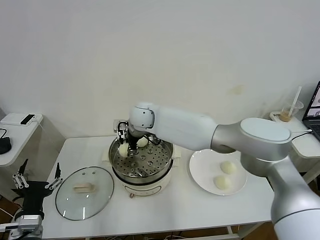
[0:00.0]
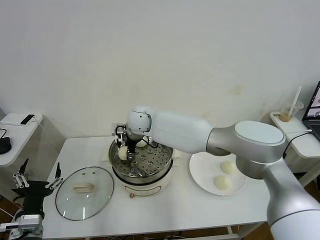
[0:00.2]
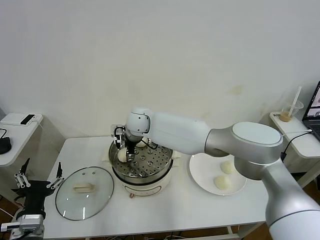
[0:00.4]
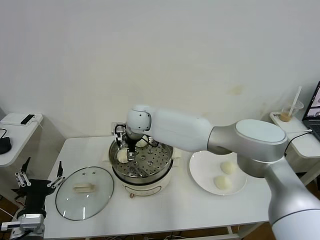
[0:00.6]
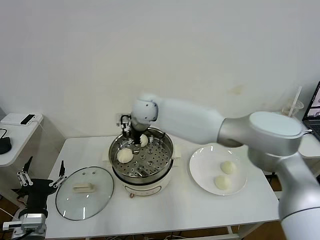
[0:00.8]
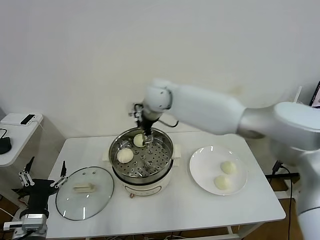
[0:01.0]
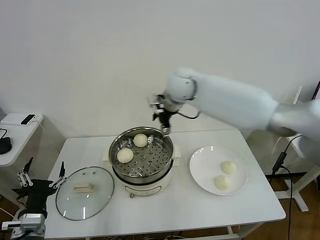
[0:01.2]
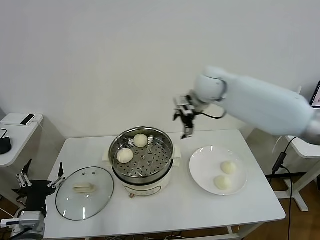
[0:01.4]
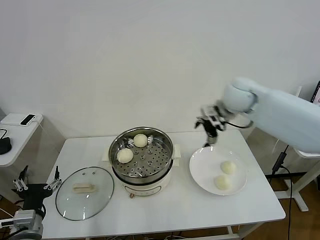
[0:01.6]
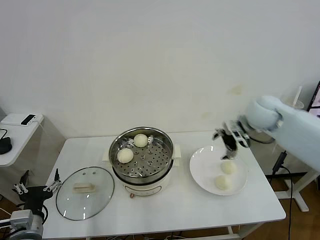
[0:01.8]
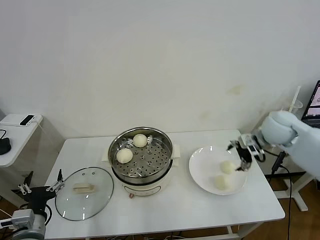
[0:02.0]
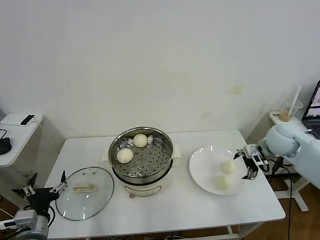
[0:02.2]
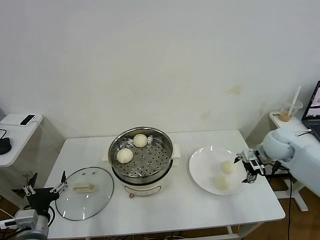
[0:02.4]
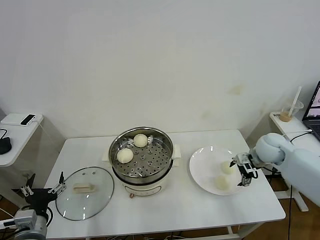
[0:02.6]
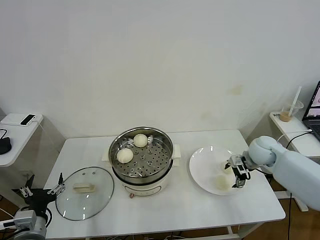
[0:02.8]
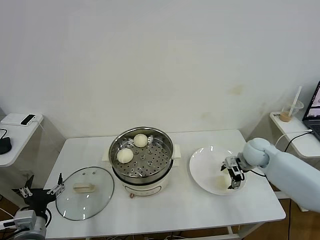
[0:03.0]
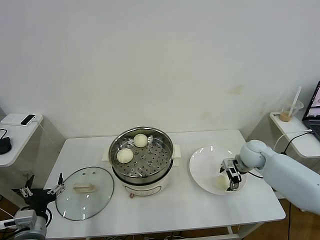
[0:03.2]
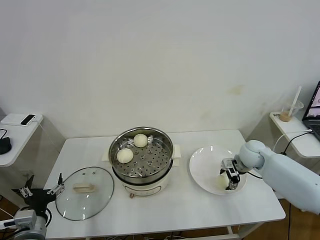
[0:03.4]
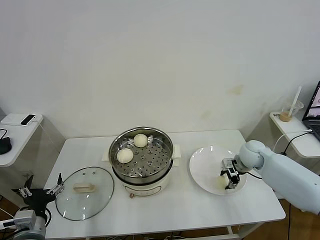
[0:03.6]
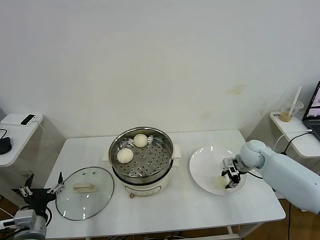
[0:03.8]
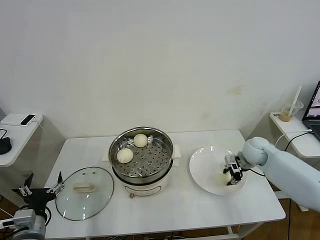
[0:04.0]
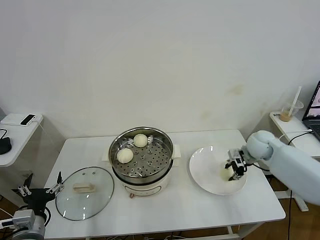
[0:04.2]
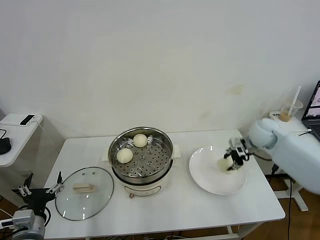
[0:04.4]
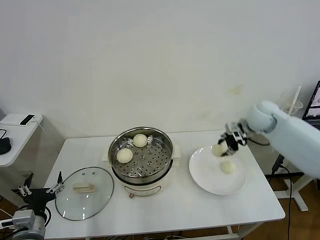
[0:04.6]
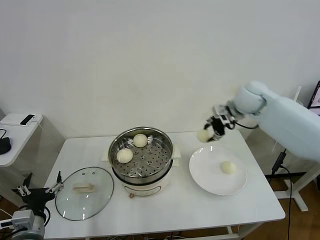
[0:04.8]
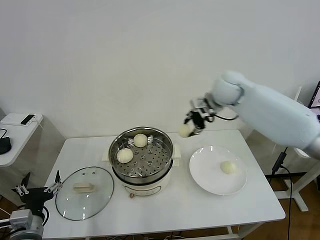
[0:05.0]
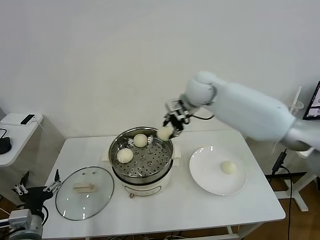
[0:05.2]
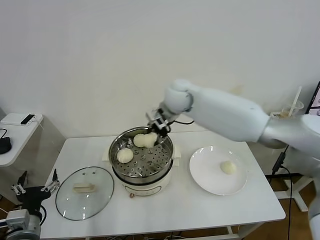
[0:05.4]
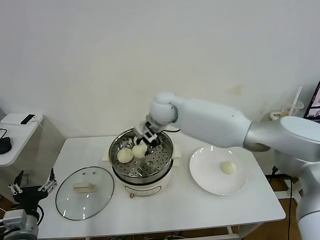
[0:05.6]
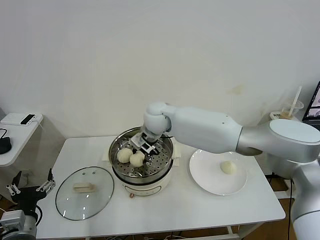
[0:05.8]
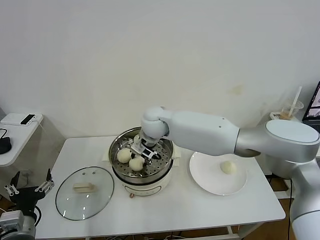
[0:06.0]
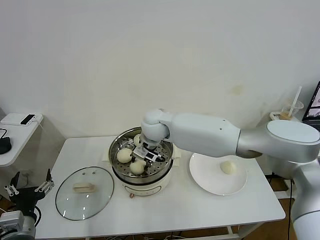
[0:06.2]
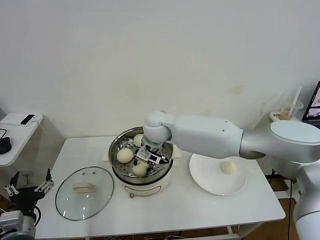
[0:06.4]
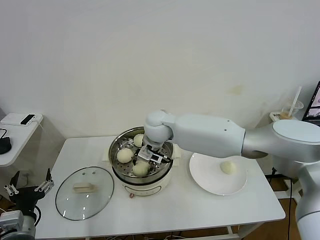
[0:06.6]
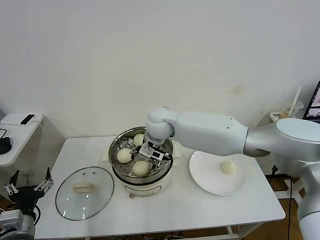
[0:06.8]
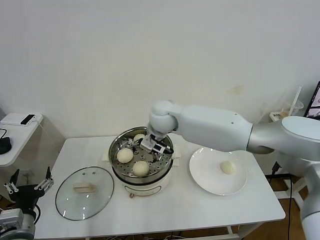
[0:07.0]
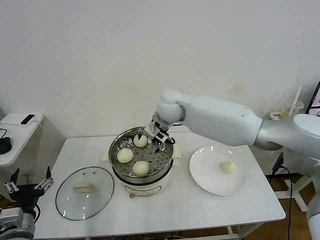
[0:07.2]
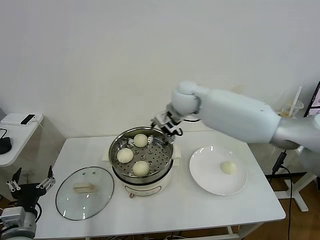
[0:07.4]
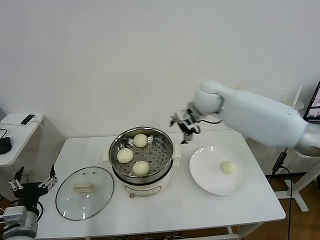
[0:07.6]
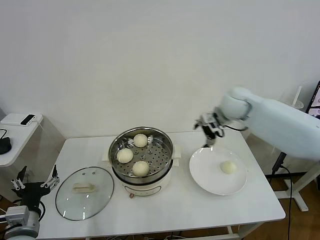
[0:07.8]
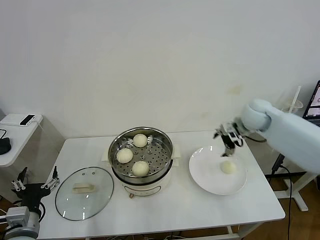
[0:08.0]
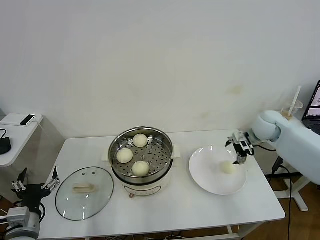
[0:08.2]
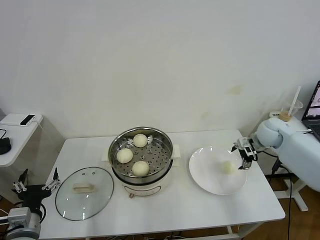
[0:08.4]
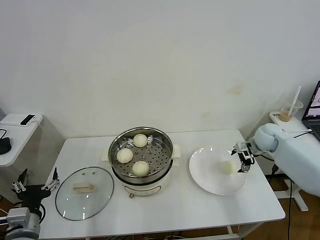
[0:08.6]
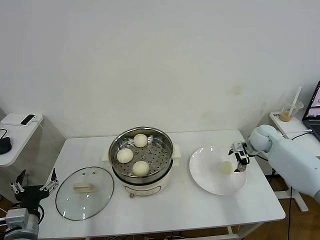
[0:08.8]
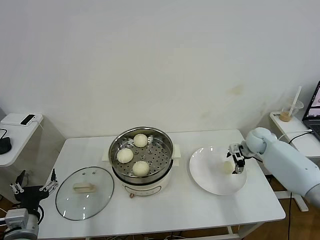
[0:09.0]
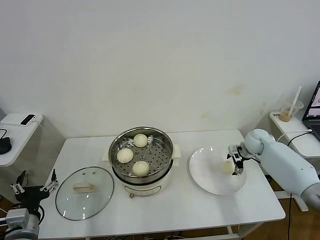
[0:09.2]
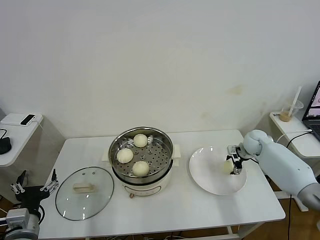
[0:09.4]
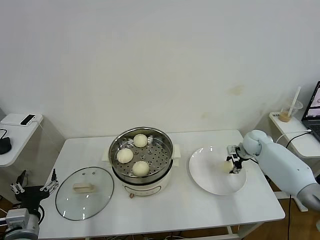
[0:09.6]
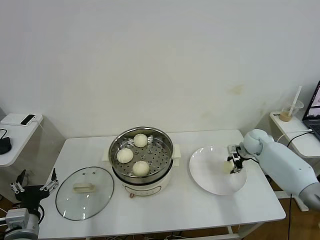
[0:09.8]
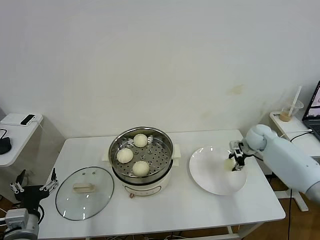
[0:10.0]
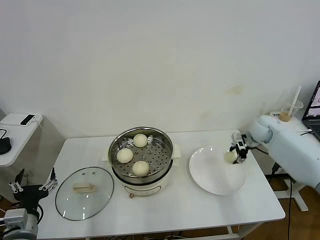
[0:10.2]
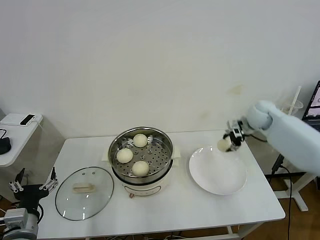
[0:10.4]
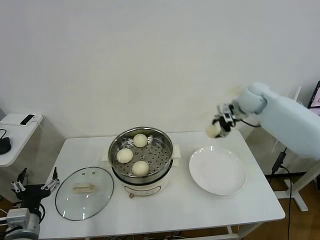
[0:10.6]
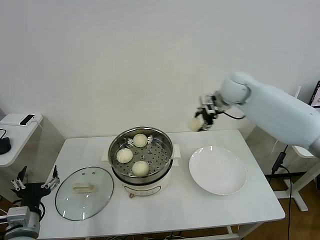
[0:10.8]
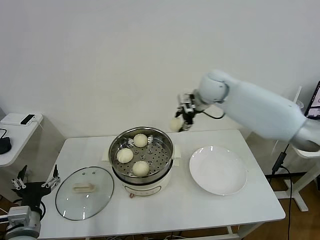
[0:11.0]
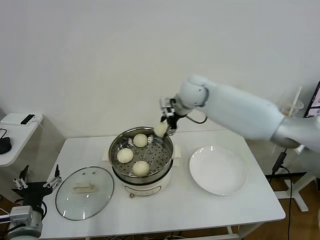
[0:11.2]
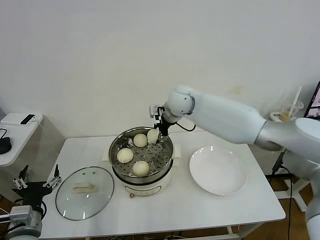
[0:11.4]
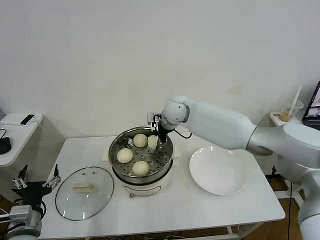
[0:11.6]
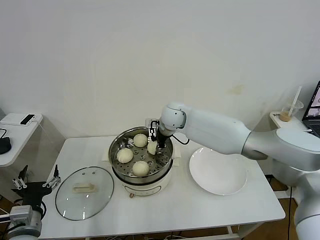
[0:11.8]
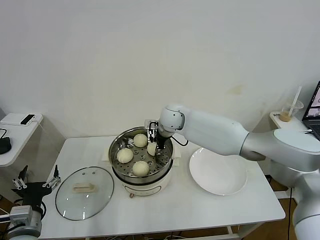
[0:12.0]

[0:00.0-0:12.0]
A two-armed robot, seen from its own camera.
Task of the whole recording: take steamed baozi put them in steamer then cover it.
Step, 0:00.8 to 0:03.8: Grasp the baozi in the plate with right gripper.
Step, 0:04.0 to 0:06.8: Place the baozi on the steamer with right gripper.
Step, 0:07.0 to 0:09.8: Grasp the baozi in the plate with right gripper.
0:00.0 to 0:01.6: The right gripper shifts about 30 cm to the right, and opens up.
0:01.6 to 0:03.0: The right gripper shifts roughly 20 cm downward and to the right.
0:03.0 to 0:04.4: The right gripper moves upward, roughly 10 cm, and closes its fingers.
0:04.4 to 0:06.0: The right gripper goes about 35 cm to the left.
0:06.0 to 0:07.6: The right gripper shifts about 20 cm to the right, and opens up.
0:07.6 to 0:09.0: The right gripper moves to the right and downward, some 30 cm.
0:09.0 to 0:10.4: The right gripper moves upward, some 15 cm, and closes up.
0:10.4 to 0:12.0: The right gripper is displaced to the left by roughly 30 cm.

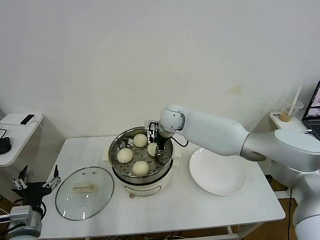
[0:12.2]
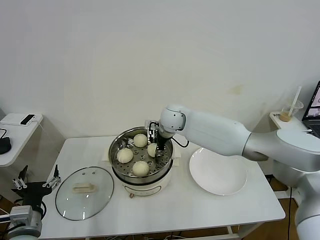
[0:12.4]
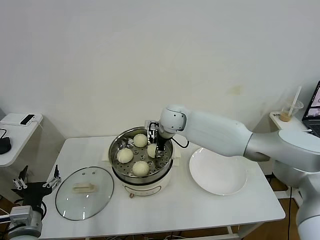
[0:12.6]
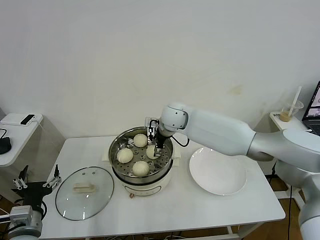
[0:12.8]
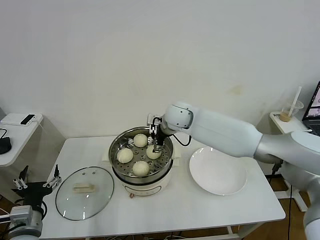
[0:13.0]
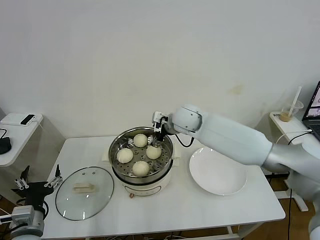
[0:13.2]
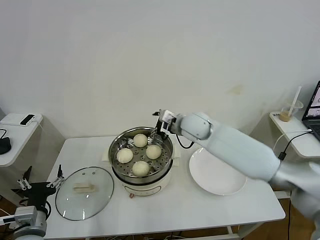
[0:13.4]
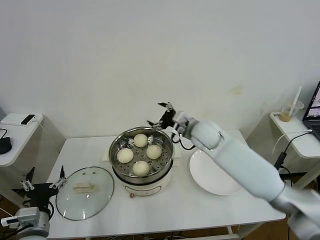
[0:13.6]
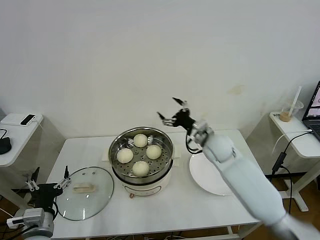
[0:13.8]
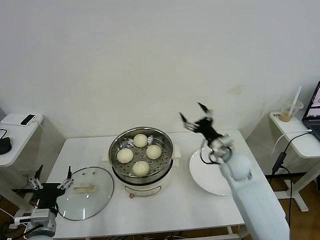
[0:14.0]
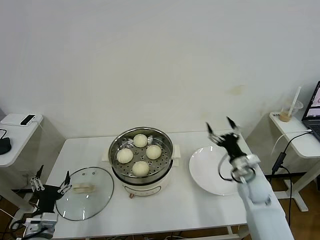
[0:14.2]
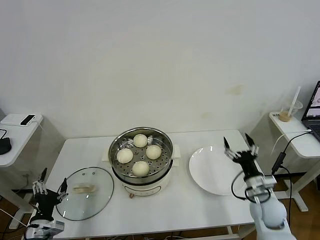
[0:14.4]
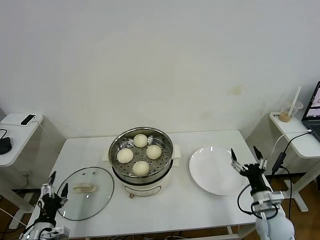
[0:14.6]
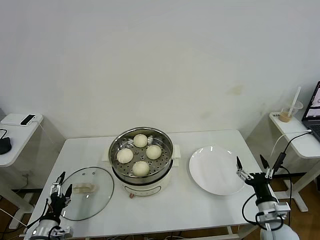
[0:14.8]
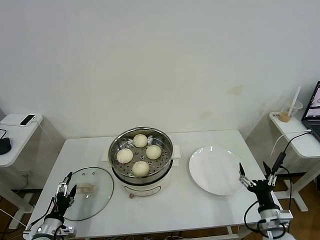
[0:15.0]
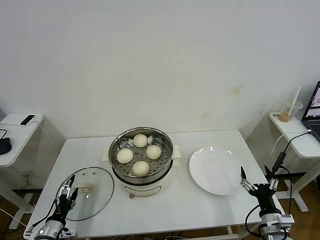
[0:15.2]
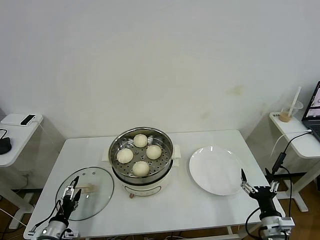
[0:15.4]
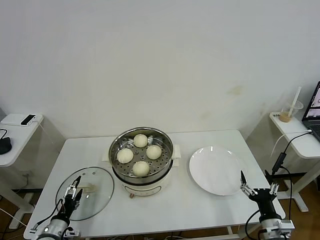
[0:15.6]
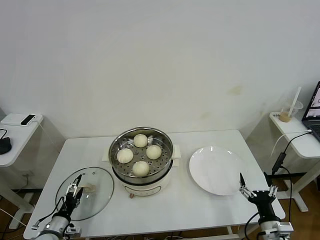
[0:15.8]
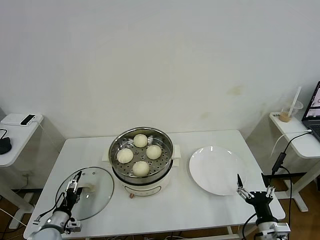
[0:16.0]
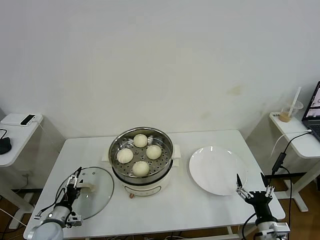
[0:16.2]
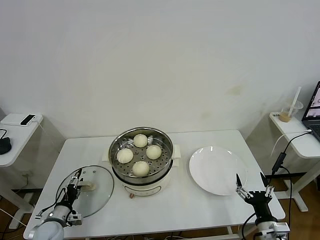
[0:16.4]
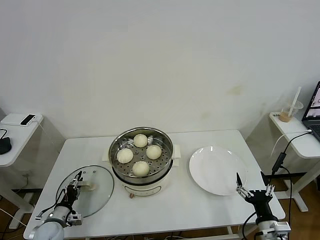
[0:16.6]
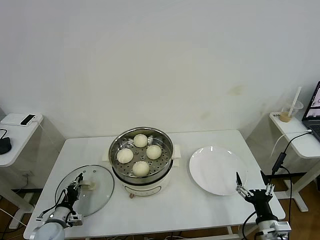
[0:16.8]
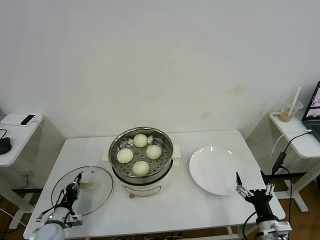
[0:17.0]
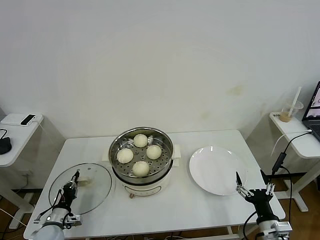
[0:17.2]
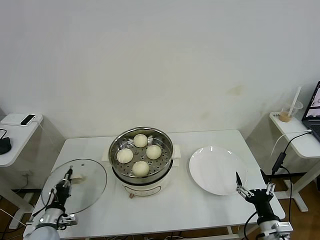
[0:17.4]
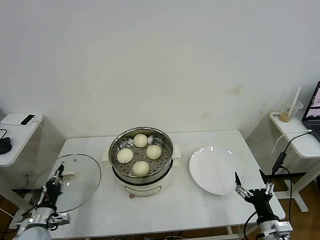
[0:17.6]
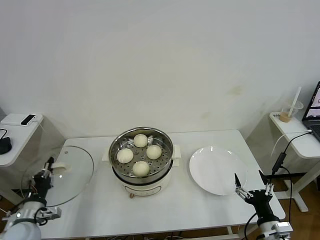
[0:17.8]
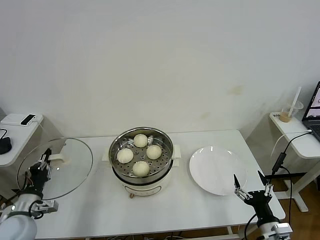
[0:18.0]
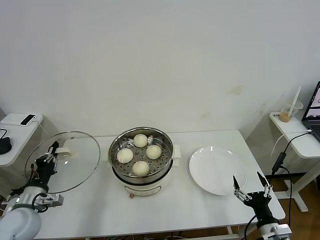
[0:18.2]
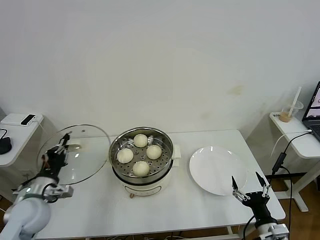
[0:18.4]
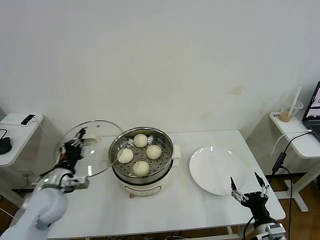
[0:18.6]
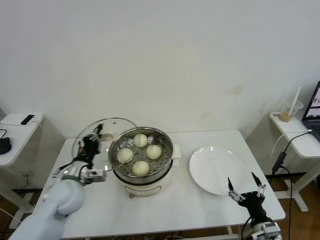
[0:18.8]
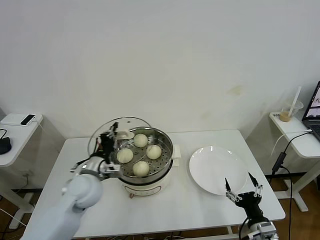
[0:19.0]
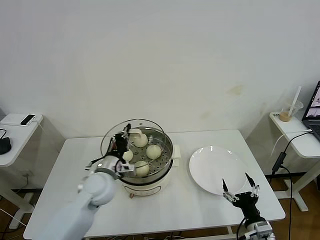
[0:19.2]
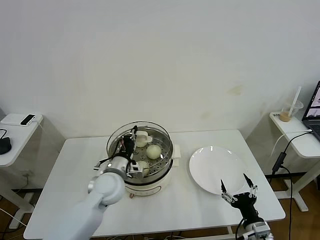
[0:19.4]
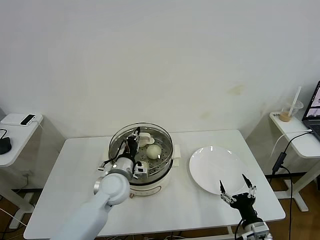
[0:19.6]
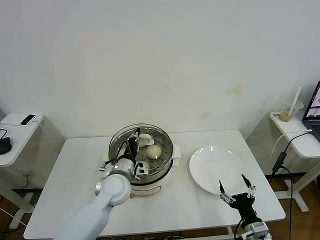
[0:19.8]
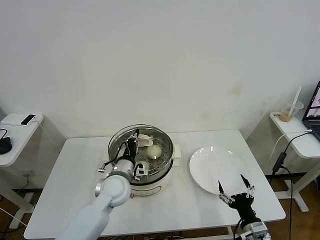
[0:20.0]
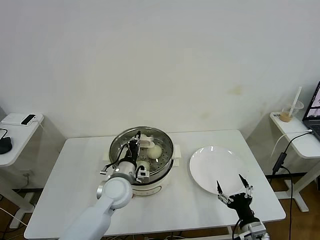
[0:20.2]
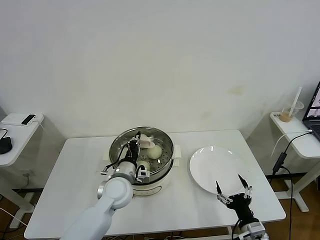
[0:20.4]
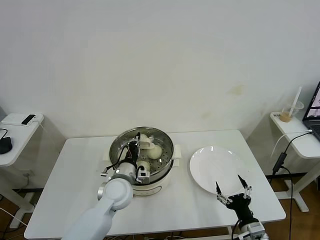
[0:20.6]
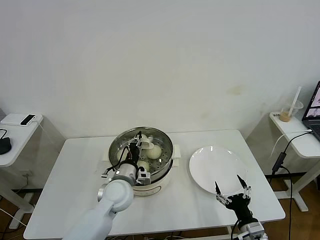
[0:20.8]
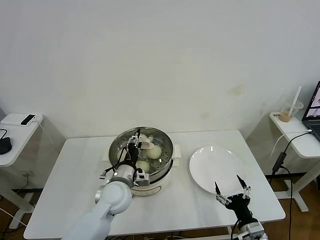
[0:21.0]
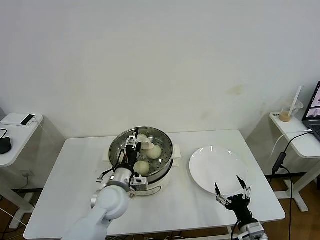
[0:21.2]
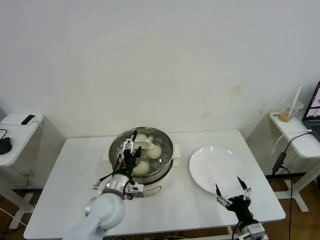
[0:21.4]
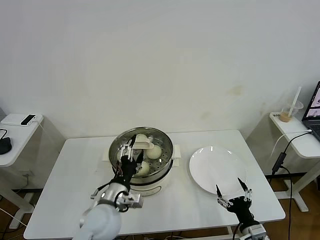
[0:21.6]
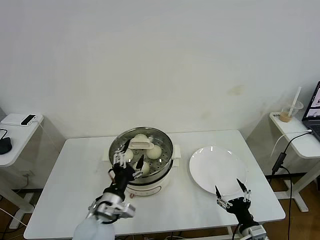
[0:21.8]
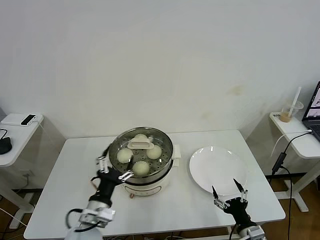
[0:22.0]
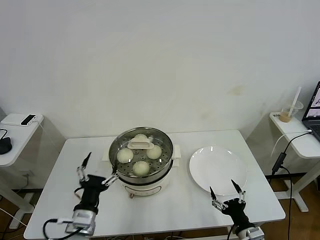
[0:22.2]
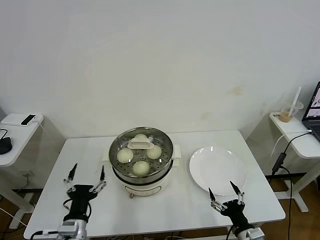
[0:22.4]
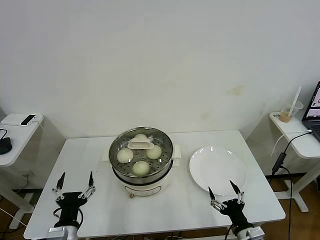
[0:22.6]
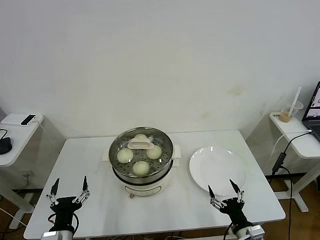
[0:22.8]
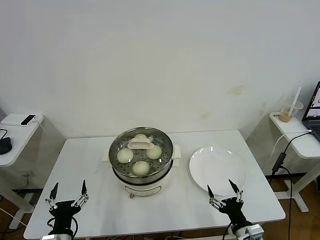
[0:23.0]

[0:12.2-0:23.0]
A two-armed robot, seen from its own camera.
Task of the whole recording: take steamed baozi put them in steamer then cover it.
Step, 0:13.2 to 0:16.8: Grasp the pot lid with left gripper.
Step, 0:17.0 to 0:21.4: Place the pot lid on the steamer with left gripper.
0:12.2 to 0:13.8: The right gripper shifts about 15 cm to the right and backward, and opens up.
0:13.8 to 0:15.2: The right gripper moves backward, to the right and downward, roughly 35 cm. The left gripper is displaced downward and to the left by roughly 15 cm.
0:15.2 to 0:16.8: The left gripper is displaced forward by approximately 5 cm, and closes up.
0:16.8 to 0:18.4: The left gripper moves upward, roughly 20 cm.
0:18.4 to 0:20.0: The left gripper moves to the right and forward, roughly 25 cm.
0:20.0 to 0:21.4: The left gripper travels backward by some 5 cm, and opens its fingers.
0:21.4 to 0:23.0: The left gripper moves backward and to the left, approximately 20 cm.
